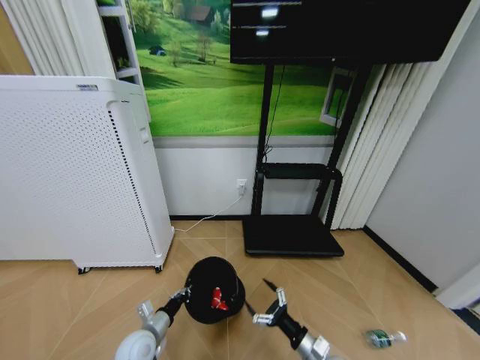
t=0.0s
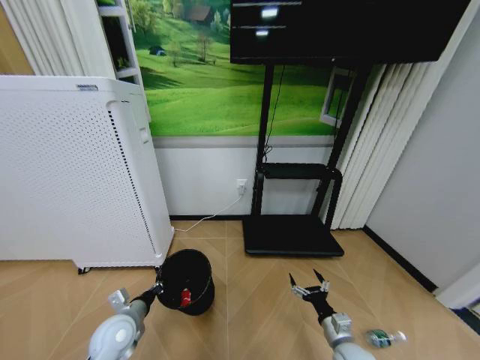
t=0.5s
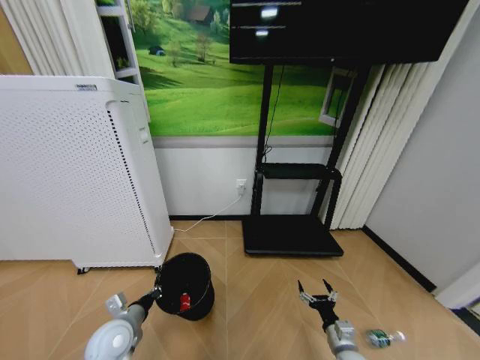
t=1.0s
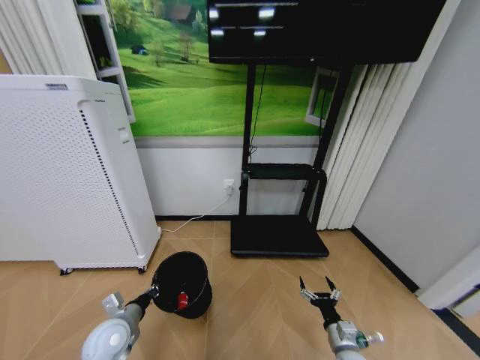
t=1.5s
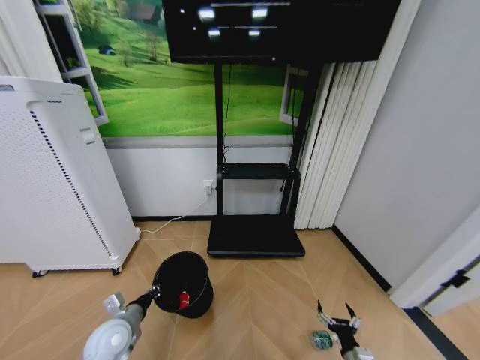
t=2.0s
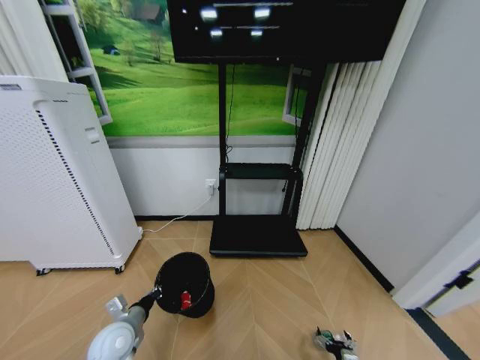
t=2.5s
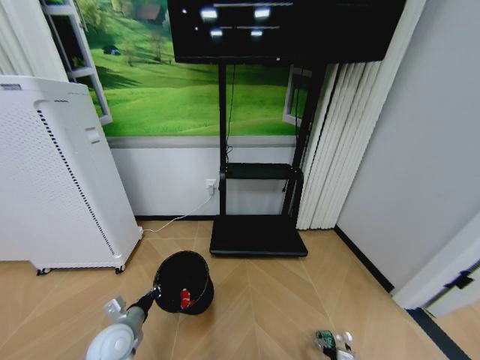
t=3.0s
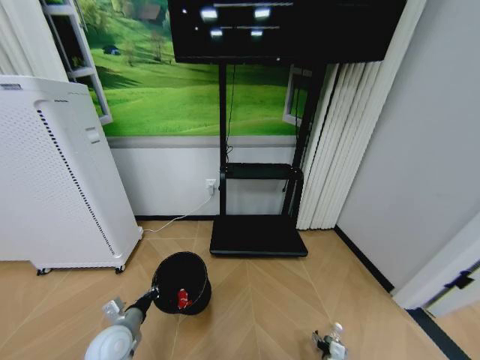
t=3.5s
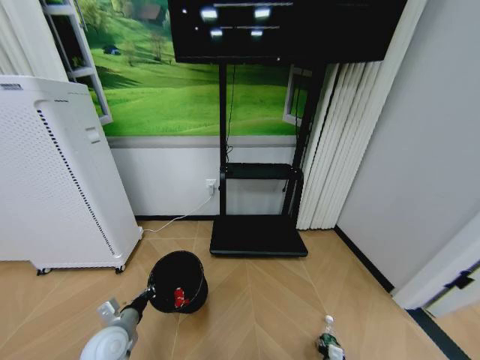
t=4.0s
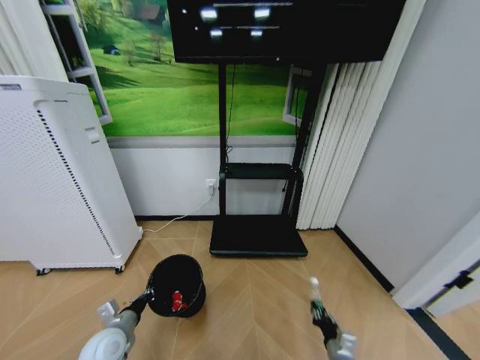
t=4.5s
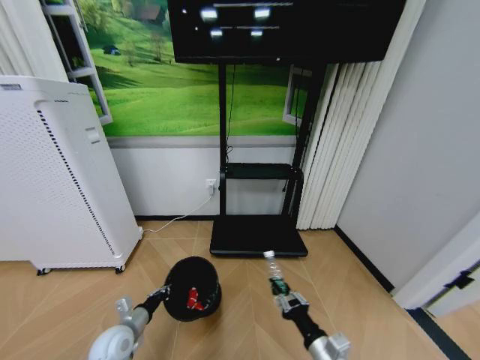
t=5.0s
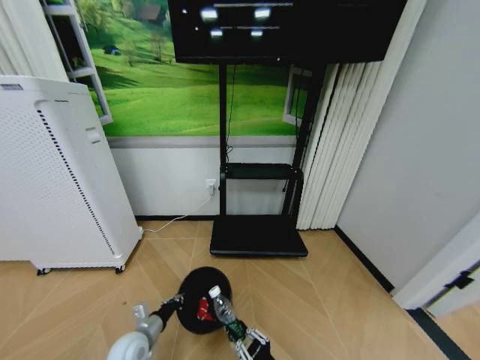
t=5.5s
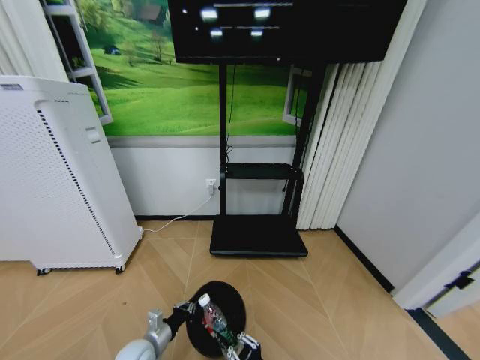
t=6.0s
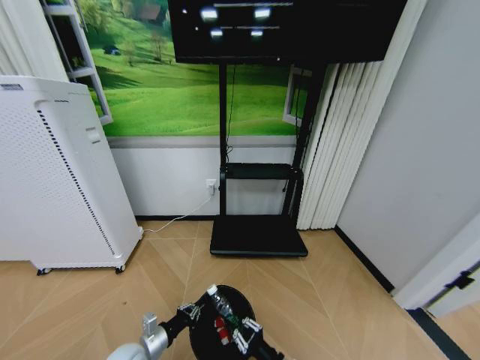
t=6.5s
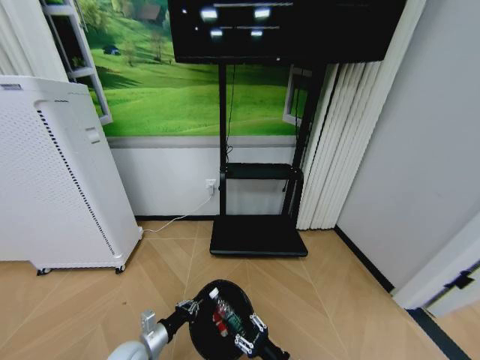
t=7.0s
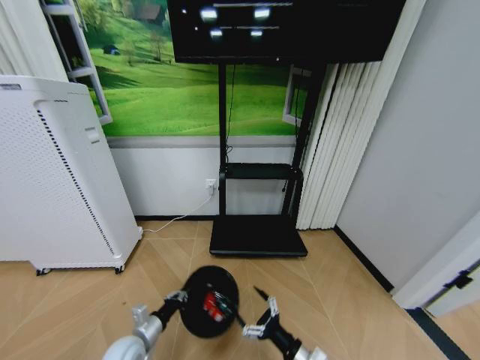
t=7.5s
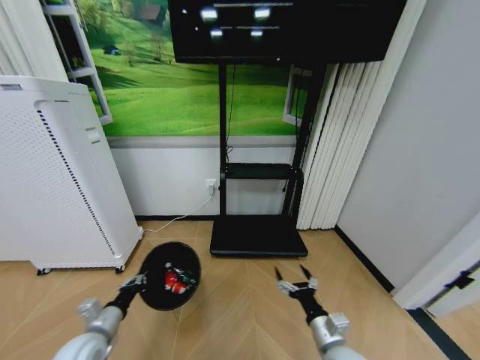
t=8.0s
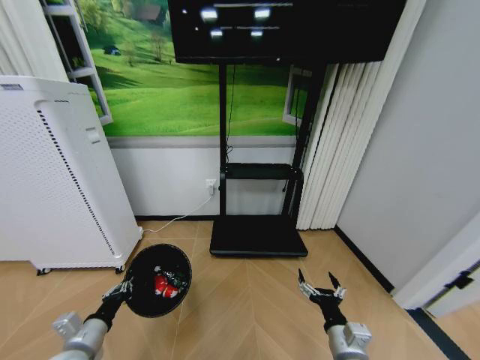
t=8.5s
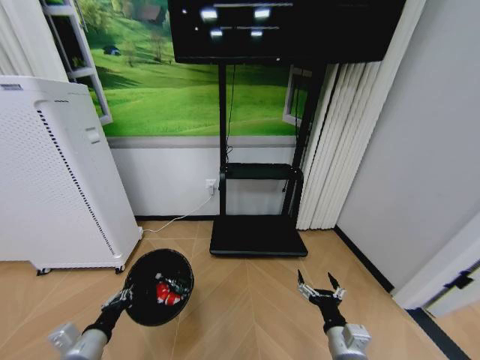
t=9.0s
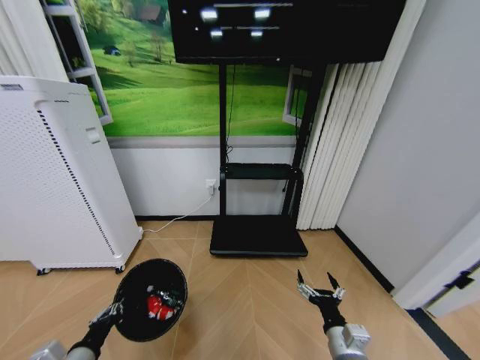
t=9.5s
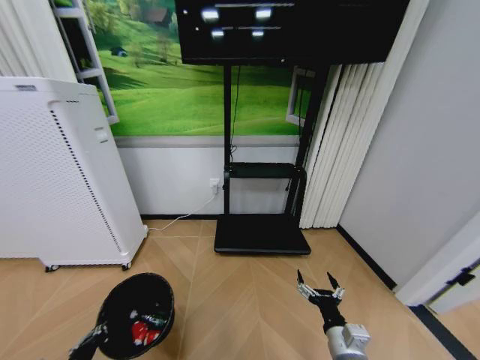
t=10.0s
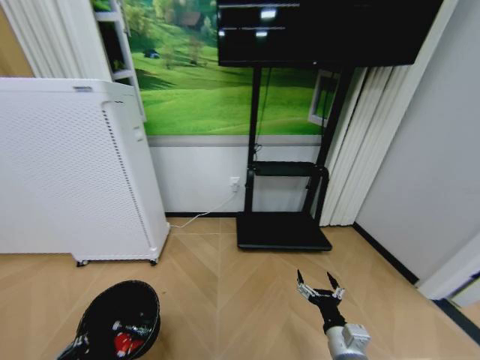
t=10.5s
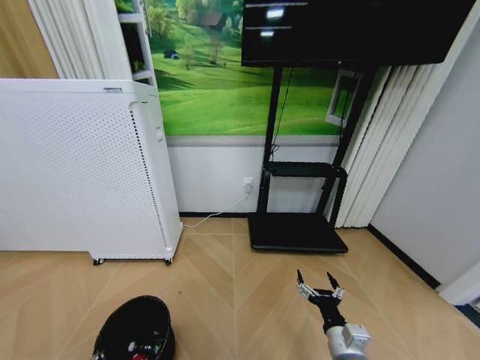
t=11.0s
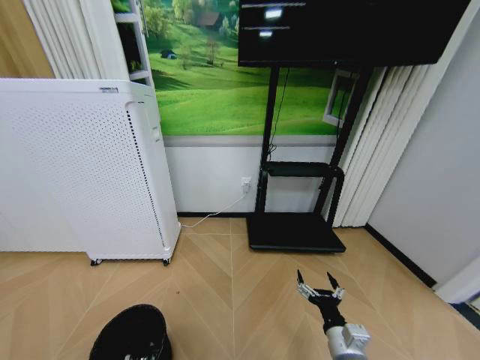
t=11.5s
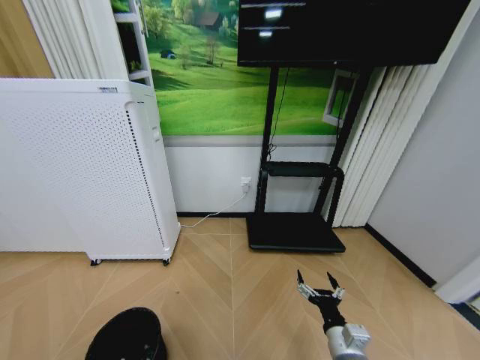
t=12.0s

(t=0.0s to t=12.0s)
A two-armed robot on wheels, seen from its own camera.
Task of the whole recording: Pick up the trash bin and place the garbage on the floor into it.
t=0.0s - t=2.0s: The left gripper goes roughly 5 cm upward. The right gripper shifts roughly 15 cm to the right and downward.
t=2.0s - t=4.0s: The right gripper travels downward by about 10 cm, and closes its fingers.
t=4.0s - t=6.0s: The left gripper heads downward and to the right, covering roughly 10 cm. Meanwhile the right gripper heads upward, to the left and backward, covering approximately 25 cm, and closes up.
t=6.0s - t=8.0s: The left gripper is displaced upward and to the left by roughly 15 cm; the right gripper shifts some 10 cm forward and to the right, and opens up.
t=8.0s - t=10.0s: The left gripper heads backward, covering about 10 cm.
t=10.0s - t=12.0s: The left gripper heads downward, covering about 5 cm.

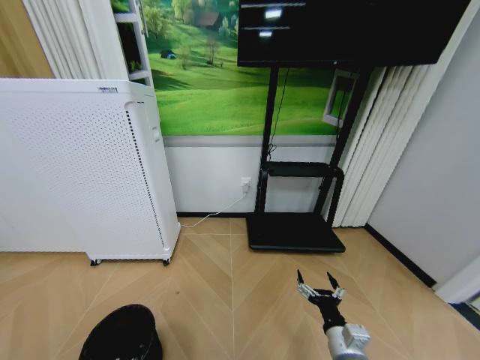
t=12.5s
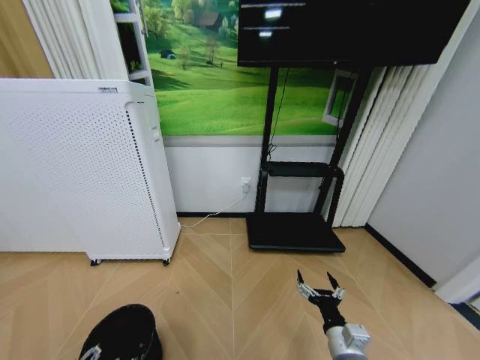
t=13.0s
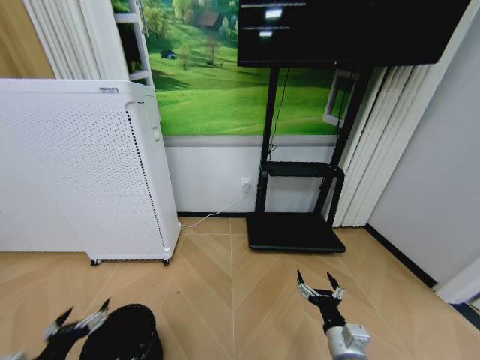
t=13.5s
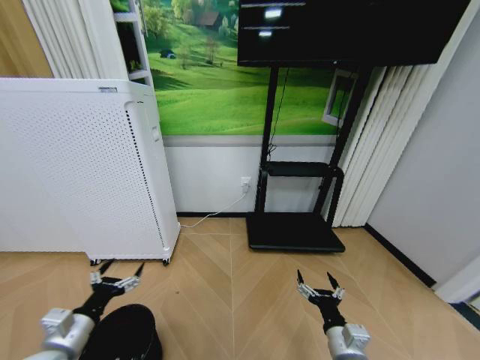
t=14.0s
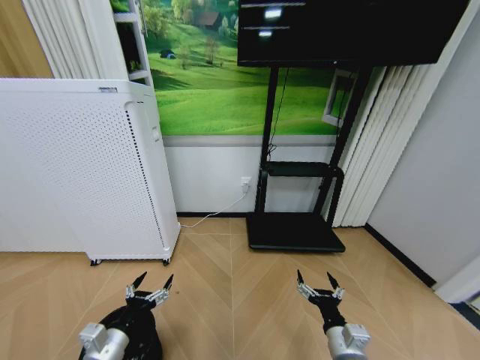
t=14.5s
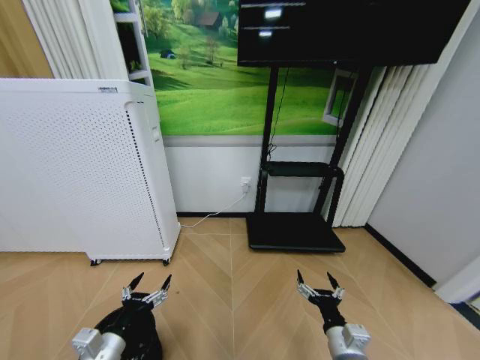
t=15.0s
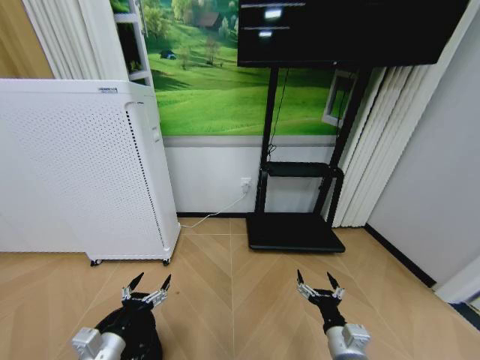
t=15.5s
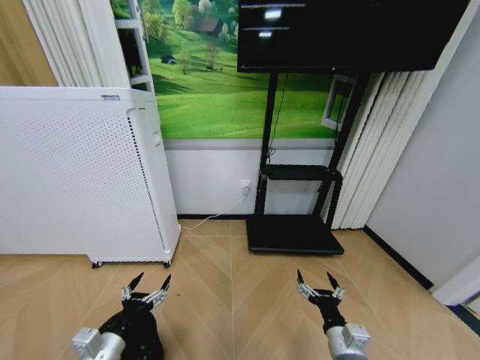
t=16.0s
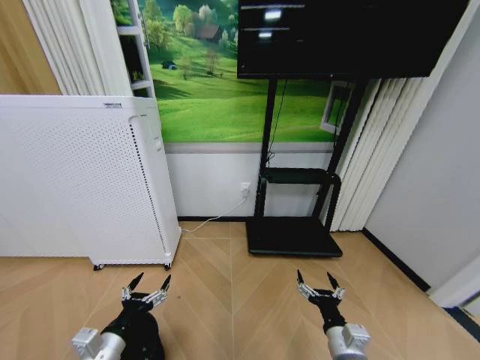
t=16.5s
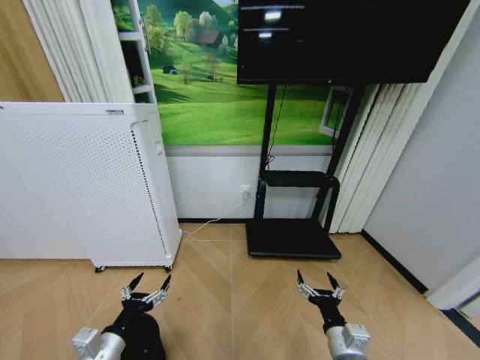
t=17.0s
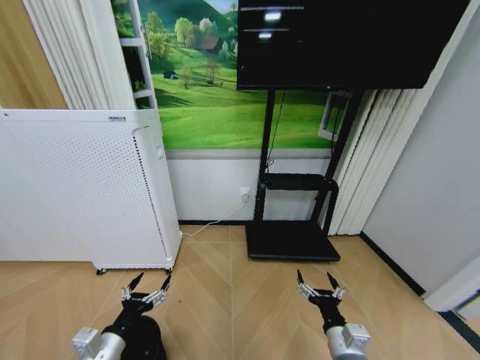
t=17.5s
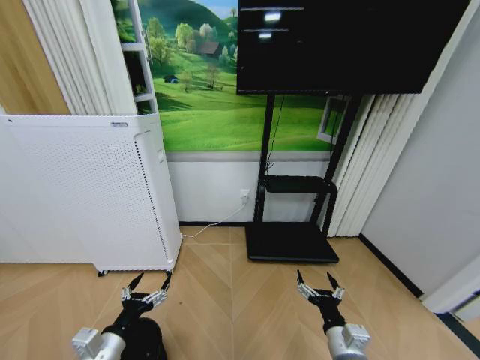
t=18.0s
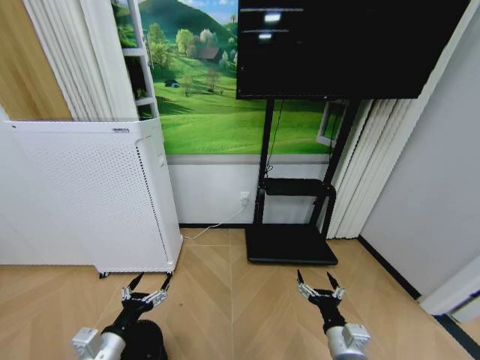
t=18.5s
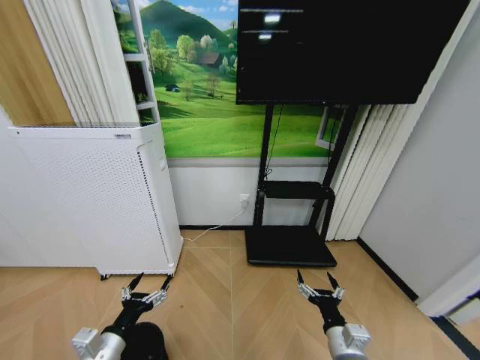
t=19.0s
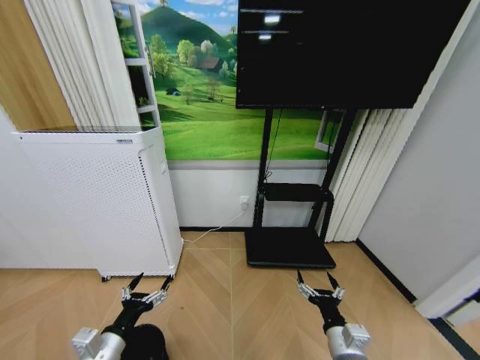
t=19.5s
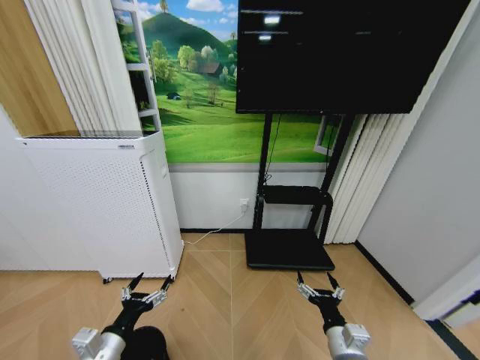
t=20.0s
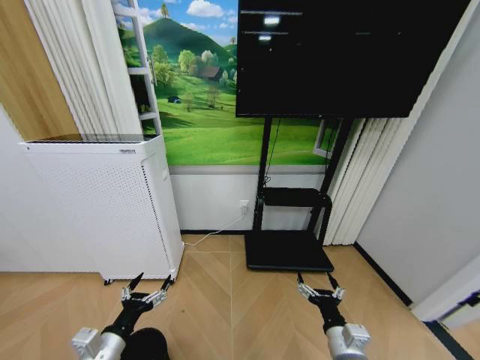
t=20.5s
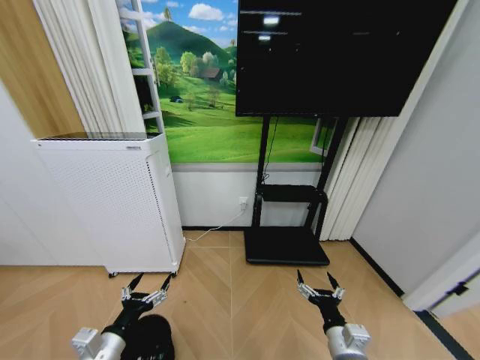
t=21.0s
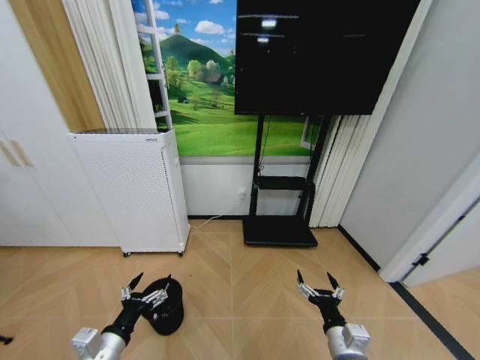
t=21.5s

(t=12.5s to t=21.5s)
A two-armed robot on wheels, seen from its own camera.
Task of the whole recording: Pick up the trash bin and place the garbage on the floor into it.
t=12.5s - t=14.5s: The left gripper heads to the right, upward and forward, covering some 15 cm, and opens up.
t=14.5s - t=17.0s: The grippers make only small movements.

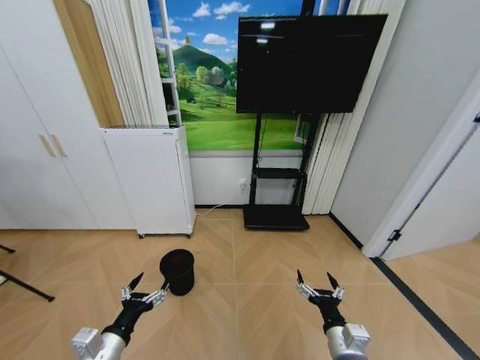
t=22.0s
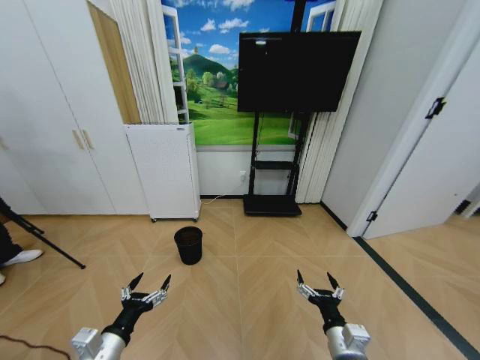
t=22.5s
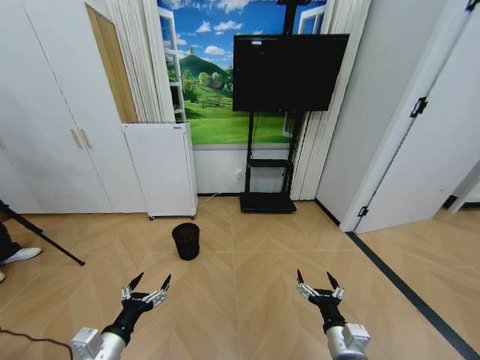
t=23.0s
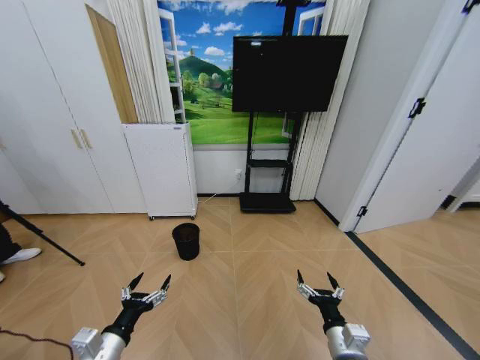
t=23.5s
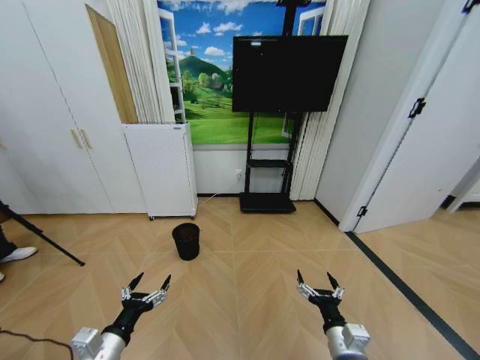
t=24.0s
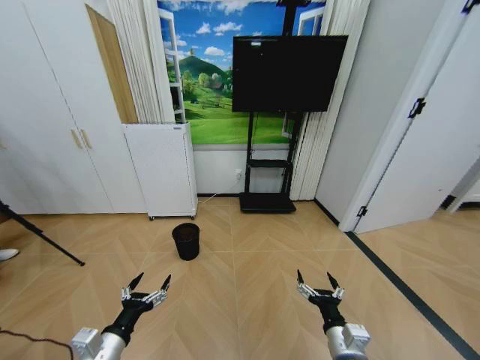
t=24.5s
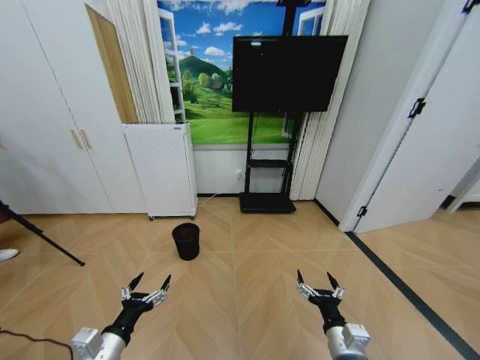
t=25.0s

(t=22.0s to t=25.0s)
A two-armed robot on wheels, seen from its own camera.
Task of the whole recording: Pick up the trash bin and place the garbage on the floor into it.
t=23.5s - t=25.0s: Both grippers stay about where they are.
